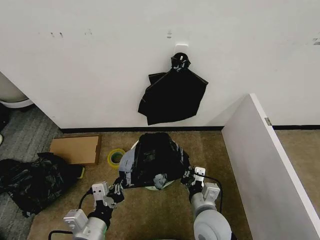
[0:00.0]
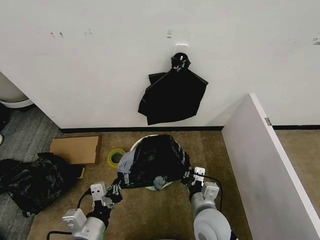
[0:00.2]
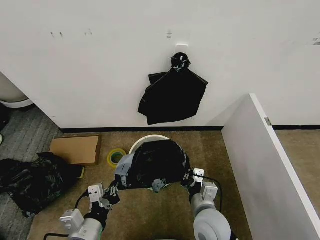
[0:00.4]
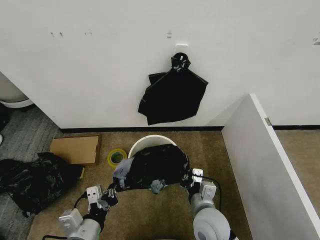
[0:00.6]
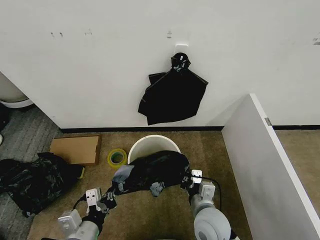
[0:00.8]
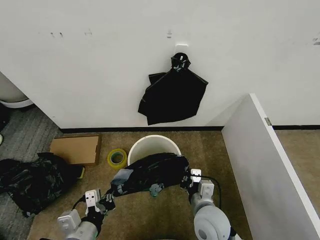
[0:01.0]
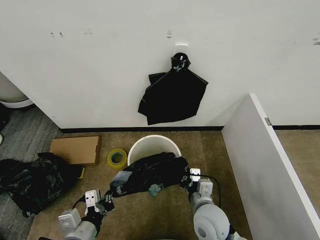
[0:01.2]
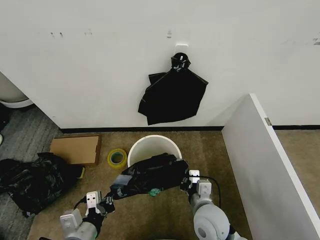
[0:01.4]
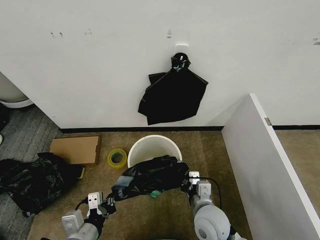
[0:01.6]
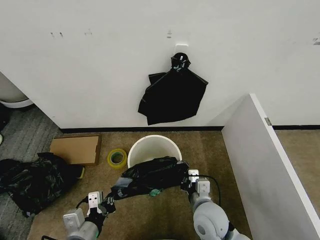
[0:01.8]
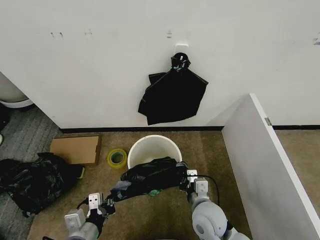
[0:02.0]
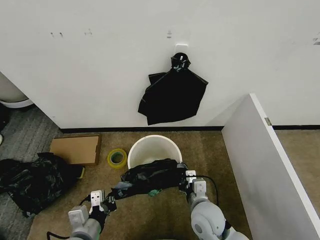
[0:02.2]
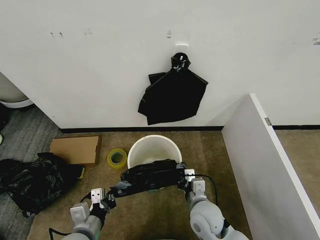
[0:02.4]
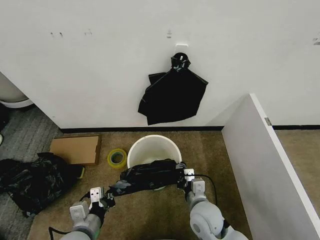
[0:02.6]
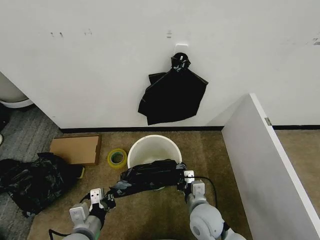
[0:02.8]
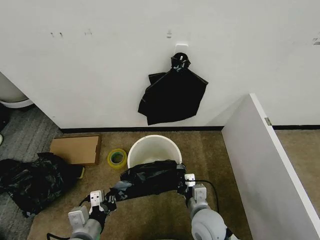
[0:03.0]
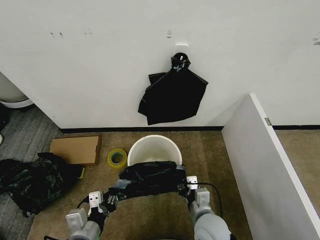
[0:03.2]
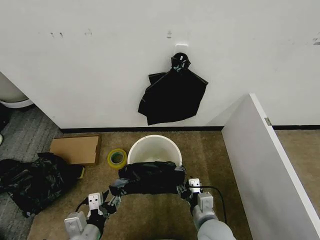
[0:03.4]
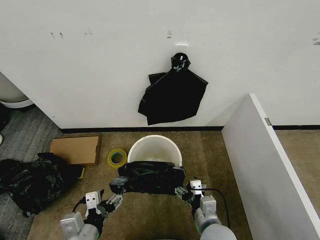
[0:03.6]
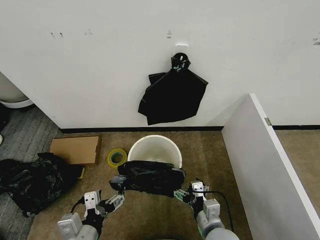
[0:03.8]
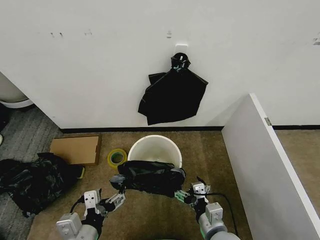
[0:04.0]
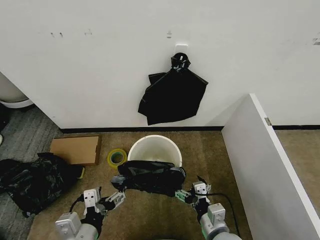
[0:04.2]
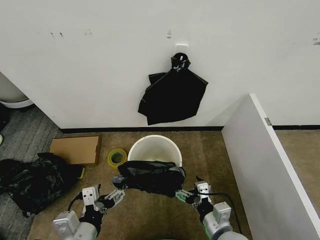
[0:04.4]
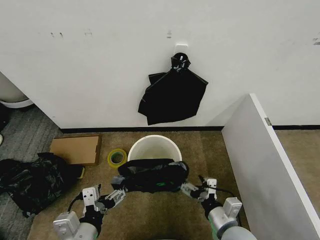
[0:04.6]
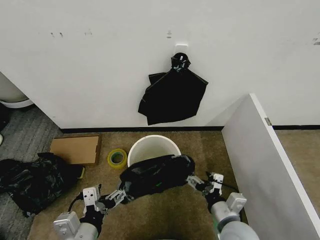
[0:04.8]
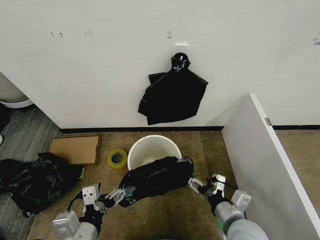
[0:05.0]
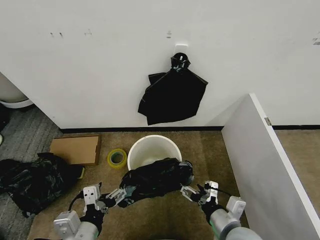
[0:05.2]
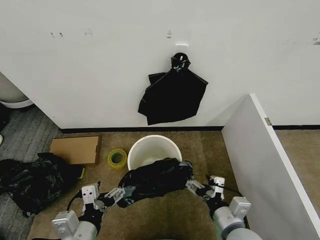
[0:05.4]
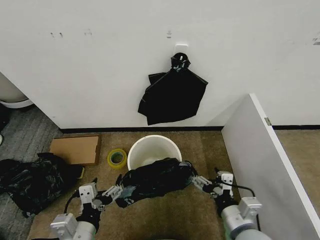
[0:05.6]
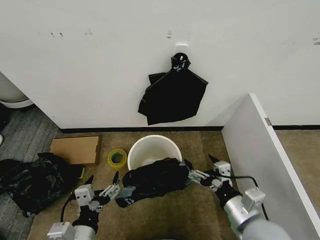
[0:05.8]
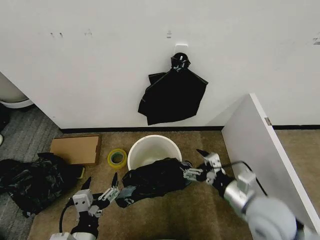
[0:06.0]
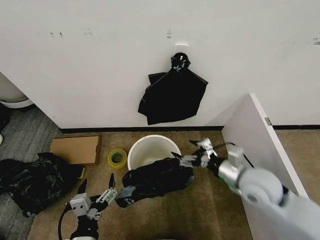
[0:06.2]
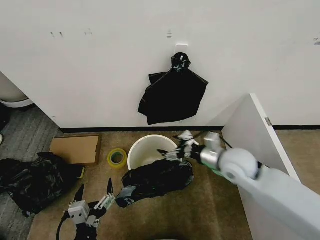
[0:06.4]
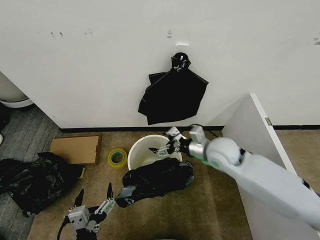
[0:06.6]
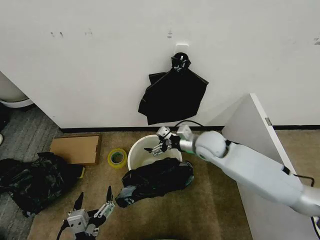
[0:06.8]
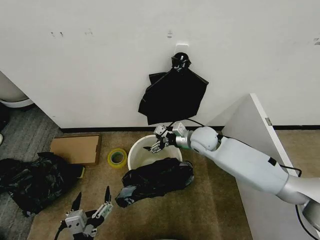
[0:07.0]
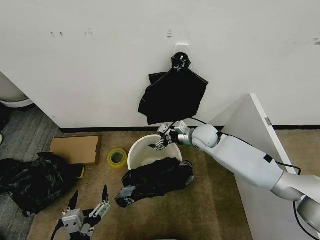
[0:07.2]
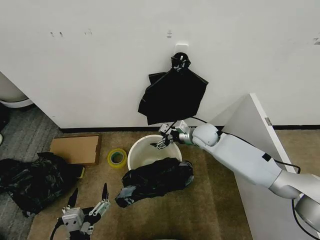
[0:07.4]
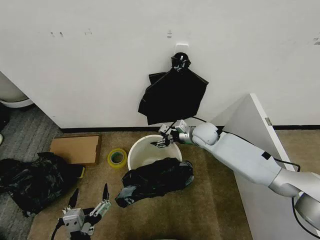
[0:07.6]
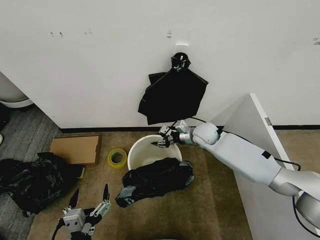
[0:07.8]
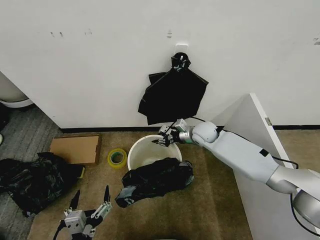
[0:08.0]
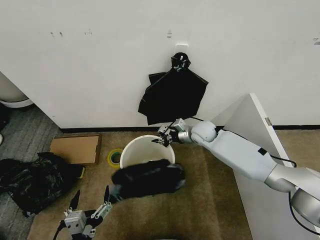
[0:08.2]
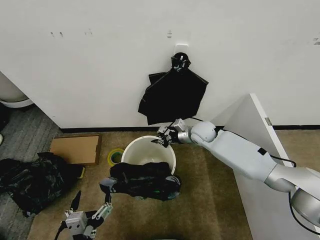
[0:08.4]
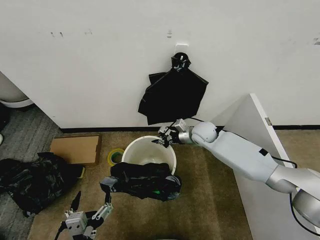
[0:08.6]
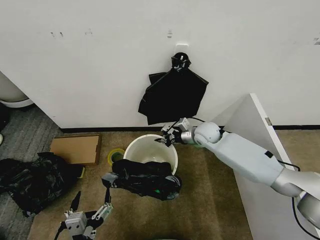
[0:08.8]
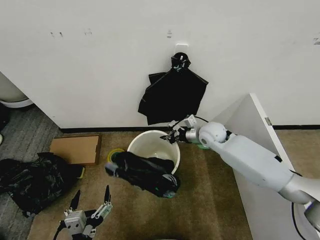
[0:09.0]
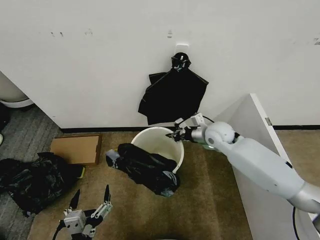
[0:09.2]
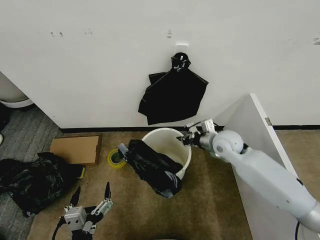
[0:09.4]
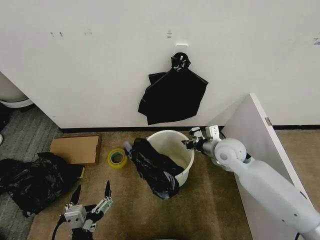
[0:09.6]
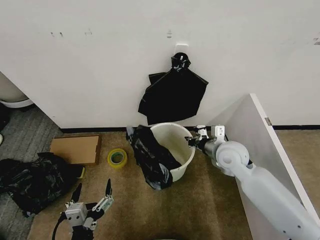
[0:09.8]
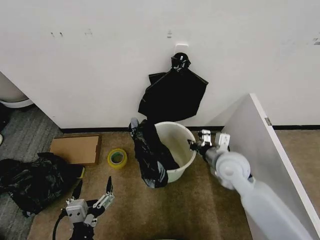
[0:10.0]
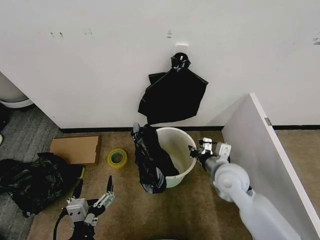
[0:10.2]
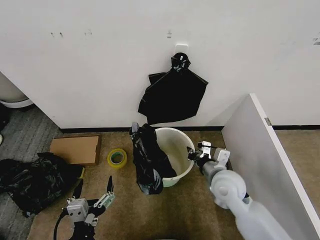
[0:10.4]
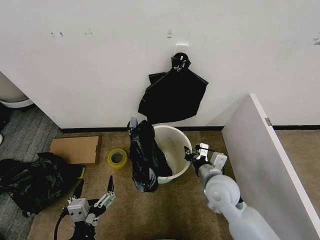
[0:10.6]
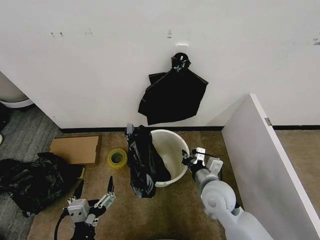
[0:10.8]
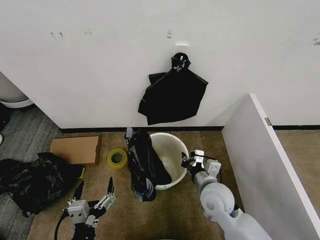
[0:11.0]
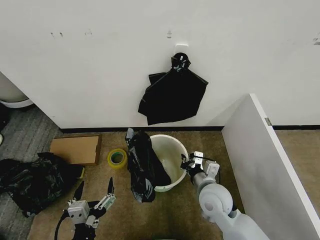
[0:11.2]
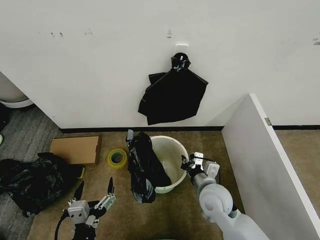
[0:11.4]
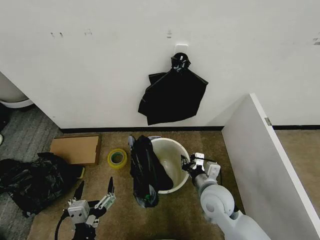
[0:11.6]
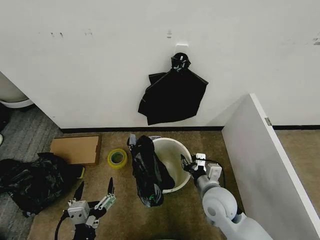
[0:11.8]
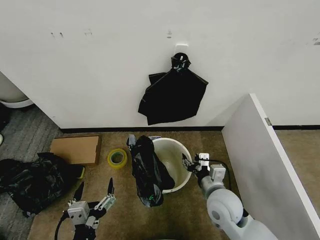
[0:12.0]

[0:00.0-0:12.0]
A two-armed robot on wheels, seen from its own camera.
Task of the whole recording: Place the garbage bag over the trash bin.
0:00.0 to 0:01.6: There are only small adjustments of the grippers.
0:01.6 to 0:03.0: The grippers make only small movements.
0:03.0 to 0:04.4: The left gripper goes approximately 5 cm upward, and opens up. Meanwhile the right gripper moves backward and to the right, some 10 cm, and opens.
0:04.4 to 0:06.0: The right gripper travels upward, to the right and forward by approximately 15 cm.
0:06.0 to 0:07.6: The right gripper heads forward, covering about 30 cm.
0:07.6 to 0:09.0: The right gripper closes.
0:09.0 to 0:10.4: The right gripper moves backward, some 20 cm.
0:10.4 to 0:12.0: The right gripper ends up some 5 cm from where it was, and opens.

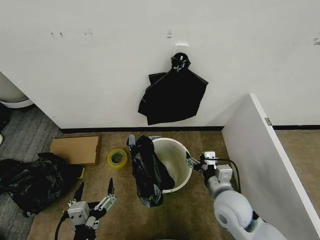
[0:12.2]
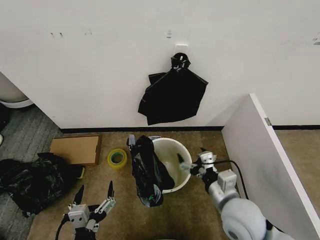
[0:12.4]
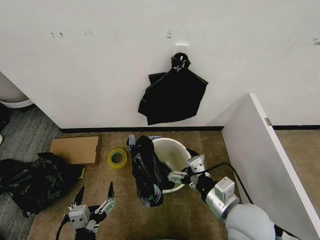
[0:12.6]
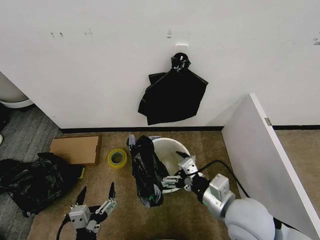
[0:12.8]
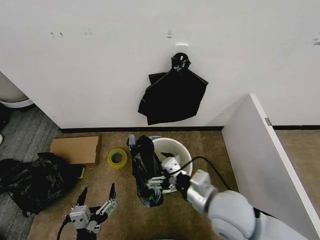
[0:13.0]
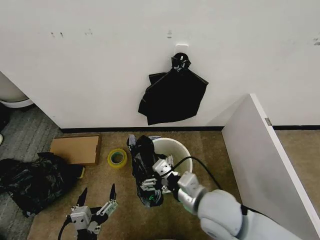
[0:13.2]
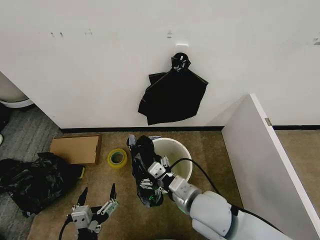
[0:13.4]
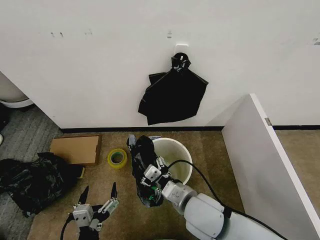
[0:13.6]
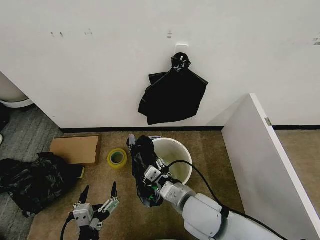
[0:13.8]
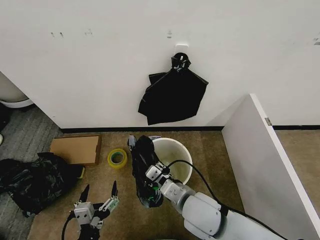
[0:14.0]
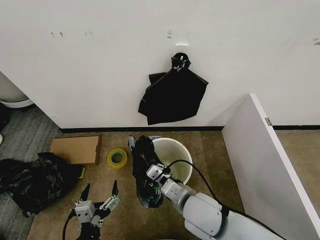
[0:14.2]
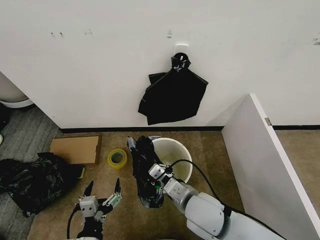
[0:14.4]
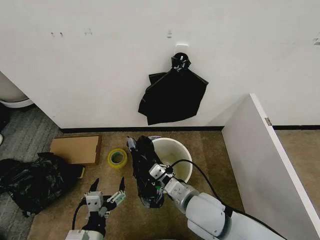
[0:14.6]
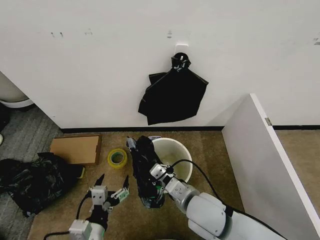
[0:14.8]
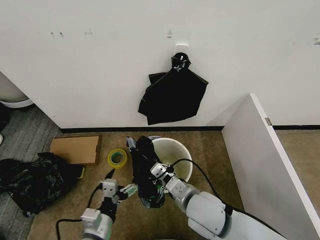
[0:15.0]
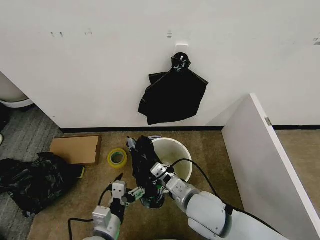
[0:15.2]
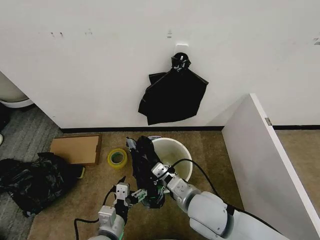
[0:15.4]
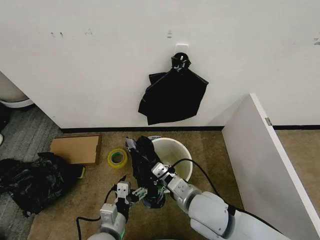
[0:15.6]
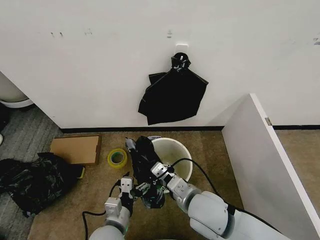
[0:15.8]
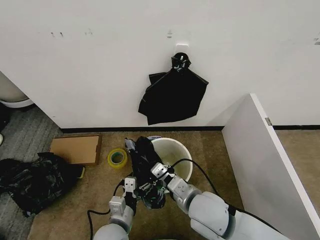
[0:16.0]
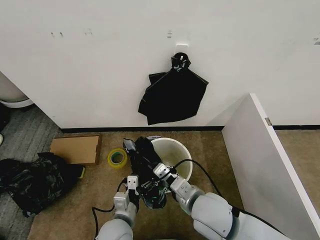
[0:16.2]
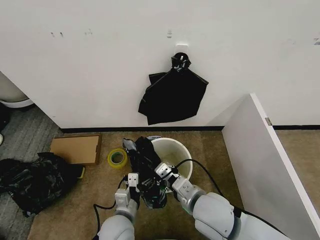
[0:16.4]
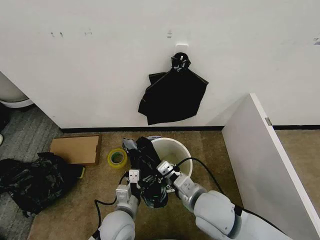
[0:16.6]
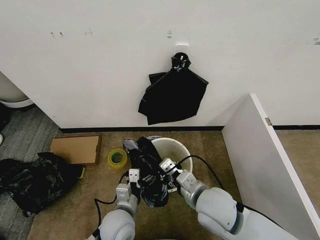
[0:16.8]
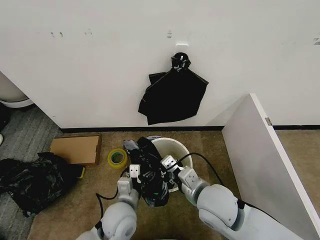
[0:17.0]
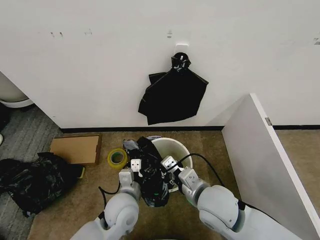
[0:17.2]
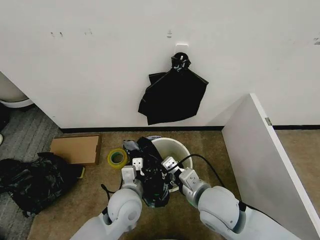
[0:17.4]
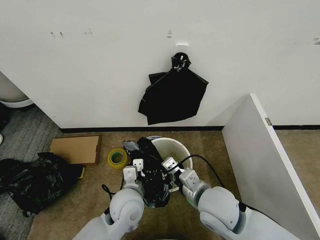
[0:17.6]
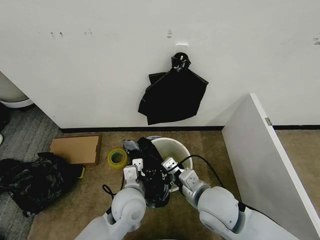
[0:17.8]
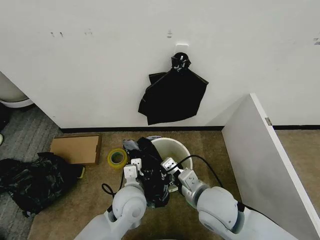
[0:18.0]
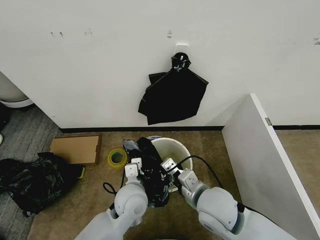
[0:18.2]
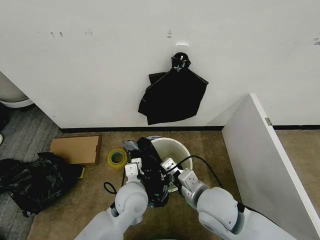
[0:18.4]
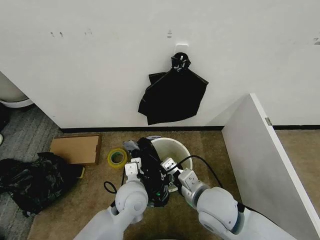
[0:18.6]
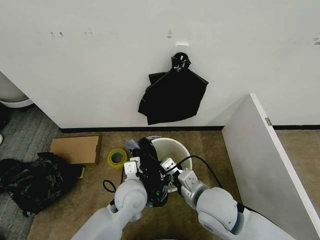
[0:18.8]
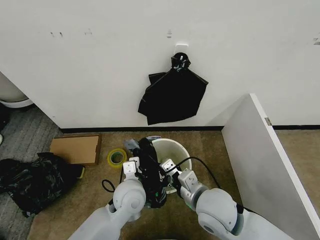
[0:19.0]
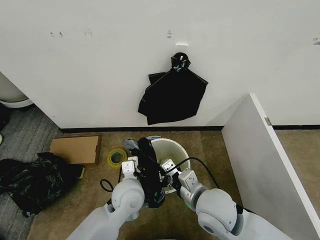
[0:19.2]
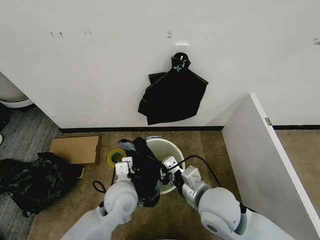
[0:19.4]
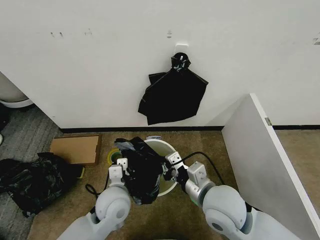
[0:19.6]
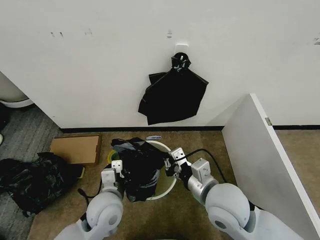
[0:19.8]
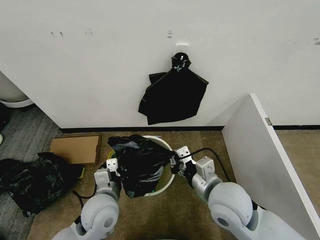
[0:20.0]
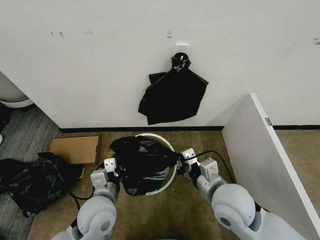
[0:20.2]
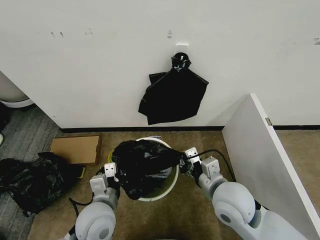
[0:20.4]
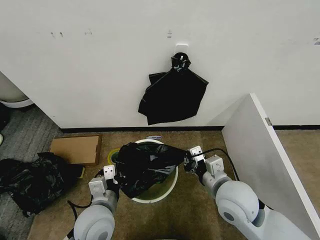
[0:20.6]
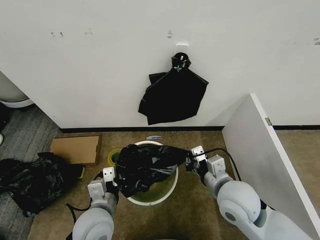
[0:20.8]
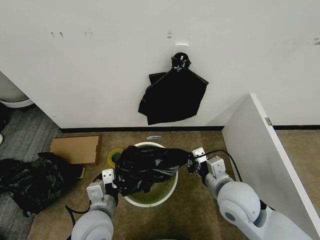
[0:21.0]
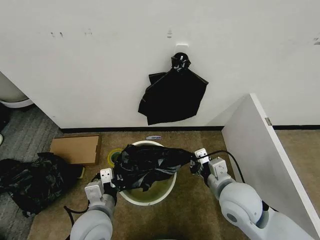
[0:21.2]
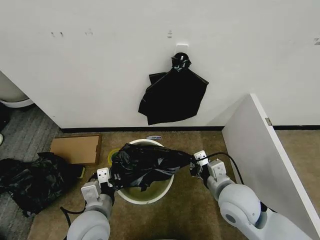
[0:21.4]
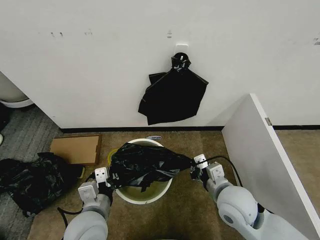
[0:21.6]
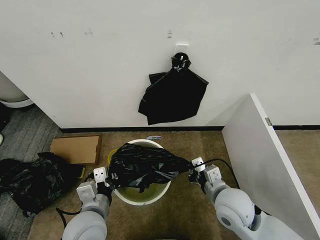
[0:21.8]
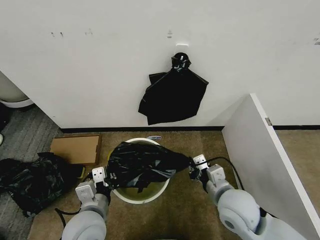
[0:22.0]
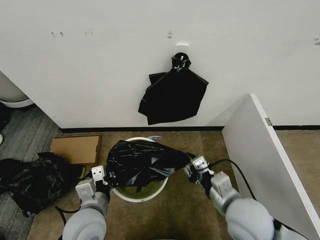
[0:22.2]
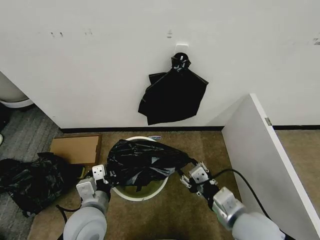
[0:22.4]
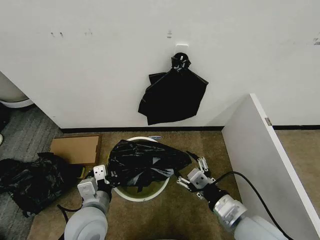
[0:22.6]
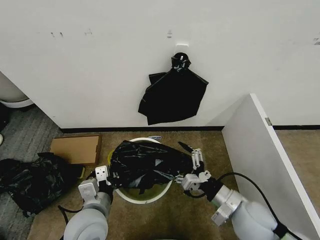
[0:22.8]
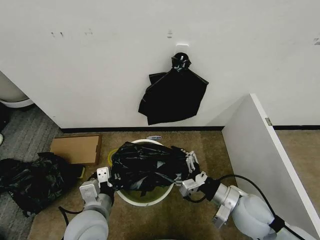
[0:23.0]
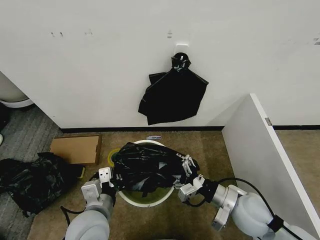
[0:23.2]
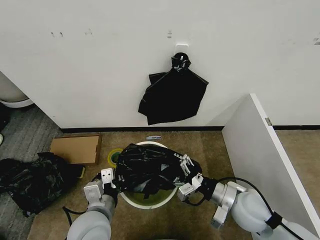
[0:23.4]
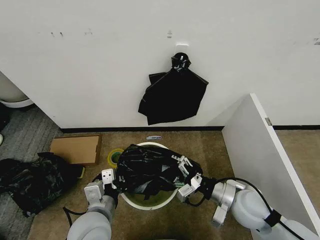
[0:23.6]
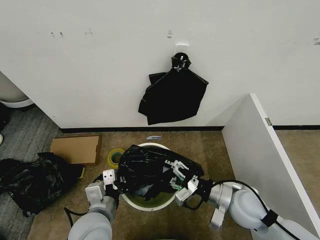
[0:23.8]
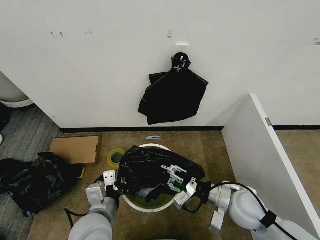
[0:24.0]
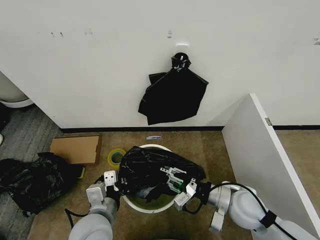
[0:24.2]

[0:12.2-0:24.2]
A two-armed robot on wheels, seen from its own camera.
Task of the whole recording: Place the garbage bag over the trash bin.
0:12.2 to 0:13.8: The right gripper shifts approximately 10 cm to the left, and closes.
0:13.8 to 0:15.2: The right gripper closes its fingers. Meanwhile the left gripper shifts approximately 10 cm forward.
0:15.2 to 0:16.6: The left gripper goes roughly 5 cm forward.
0:16.6 to 0:18.2: The left gripper is displaced upward and forward by approximately 10 cm.
0:18.2 to 0:19.8: The left gripper goes approximately 5 cm to the left, and closes.
0:19.8 to 0:21.2: The left gripper travels backward by approximately 5 cm. Meanwhile the right gripper changes place by roughly 5 cm.
0:21.2 to 0:22.6: The right gripper heads backward, covering roughly 10 cm, and opens its fingers.
0:22.6 to 0:24.2: The right gripper goes some 10 cm forward, and closes.
